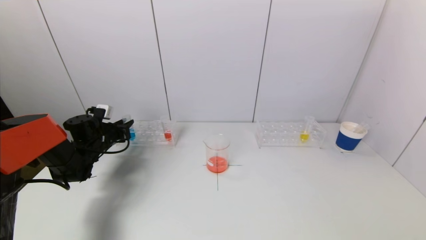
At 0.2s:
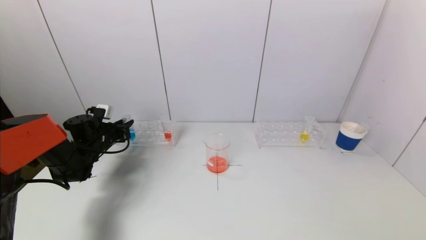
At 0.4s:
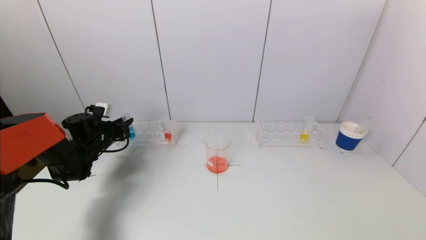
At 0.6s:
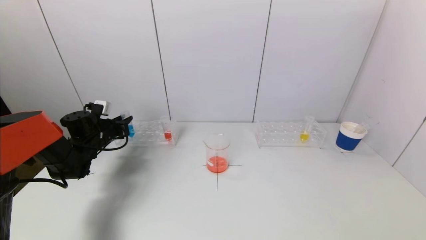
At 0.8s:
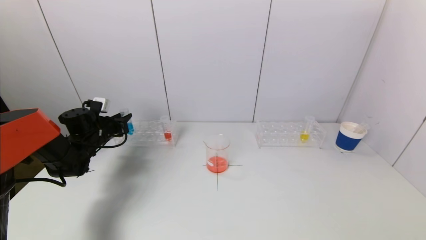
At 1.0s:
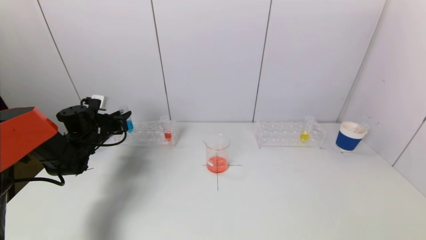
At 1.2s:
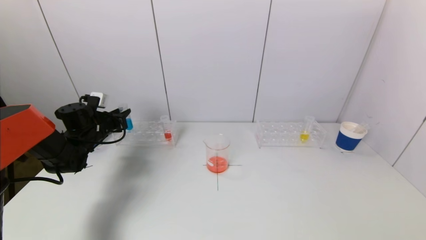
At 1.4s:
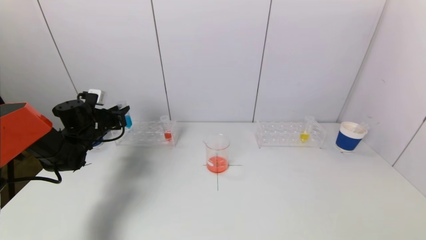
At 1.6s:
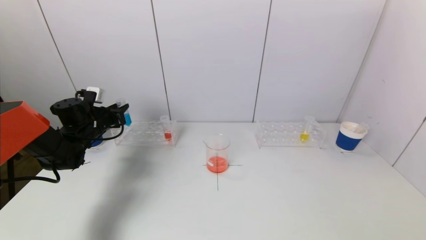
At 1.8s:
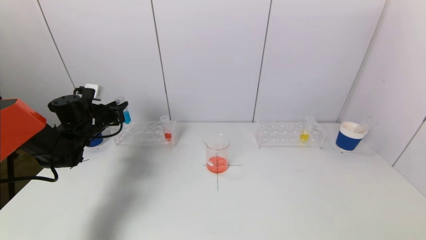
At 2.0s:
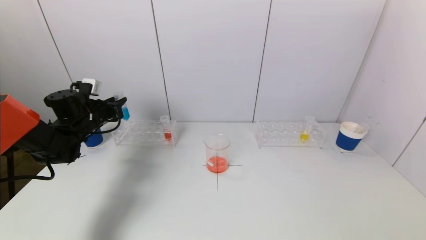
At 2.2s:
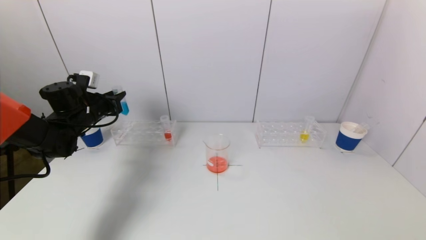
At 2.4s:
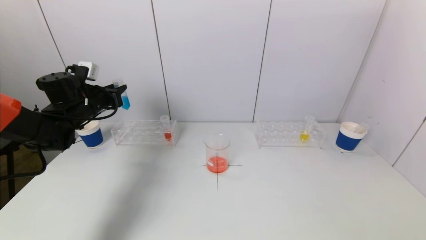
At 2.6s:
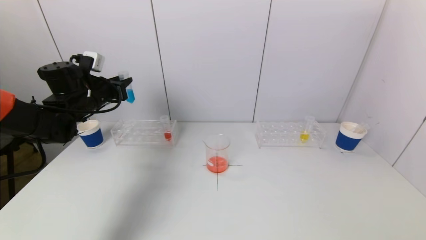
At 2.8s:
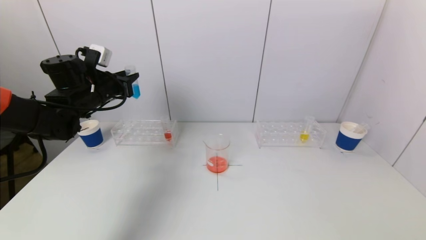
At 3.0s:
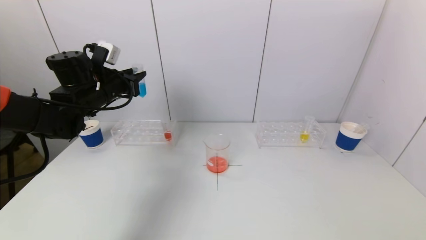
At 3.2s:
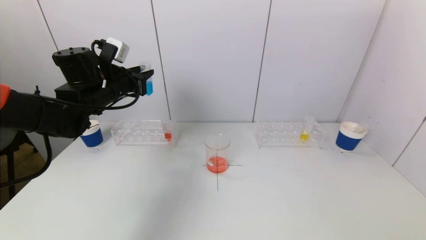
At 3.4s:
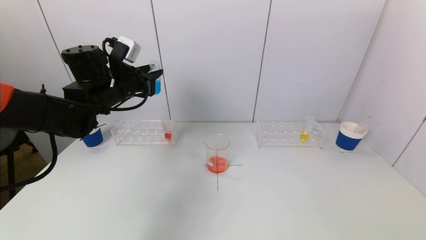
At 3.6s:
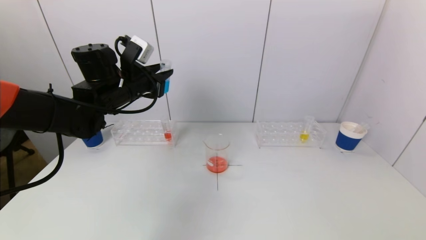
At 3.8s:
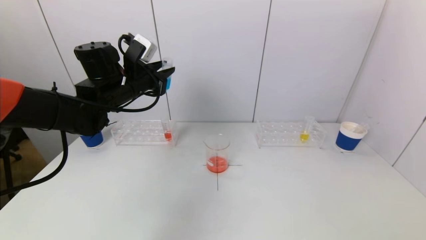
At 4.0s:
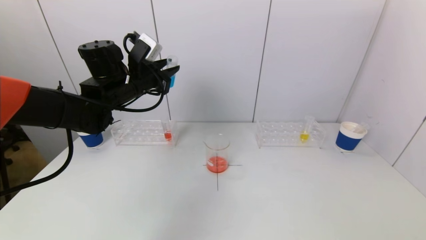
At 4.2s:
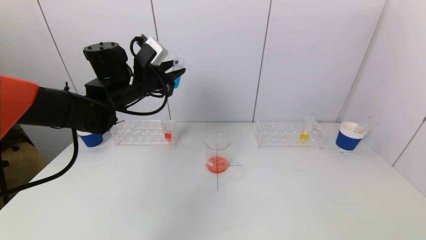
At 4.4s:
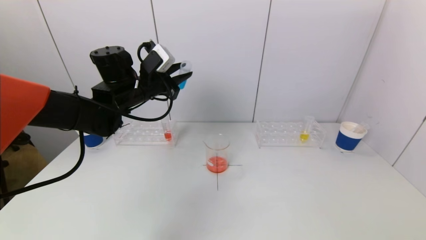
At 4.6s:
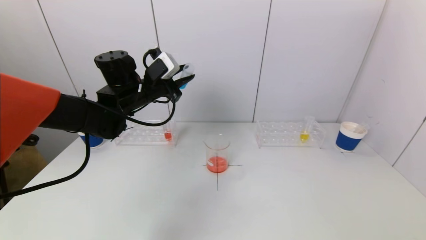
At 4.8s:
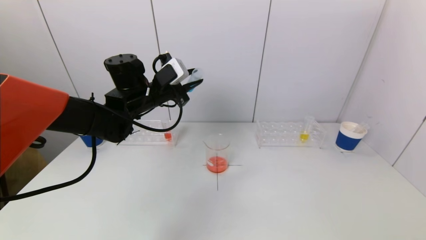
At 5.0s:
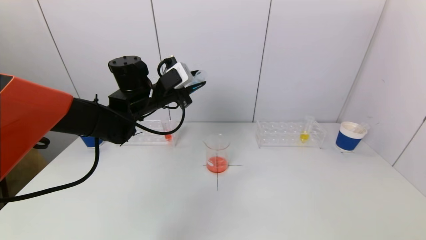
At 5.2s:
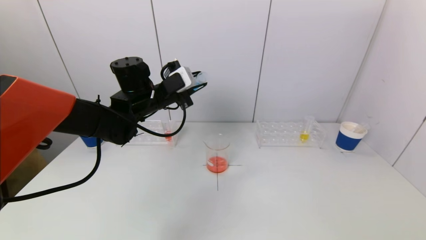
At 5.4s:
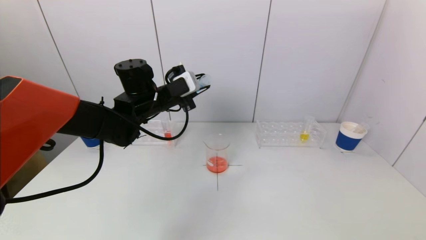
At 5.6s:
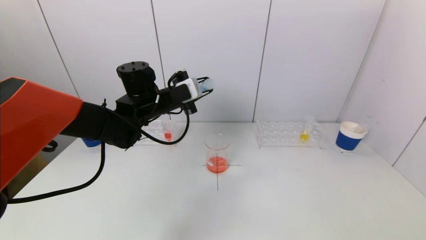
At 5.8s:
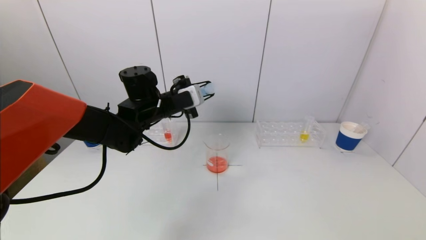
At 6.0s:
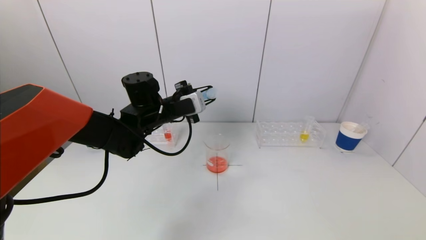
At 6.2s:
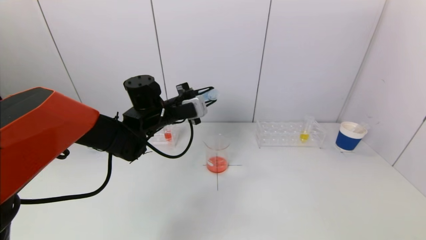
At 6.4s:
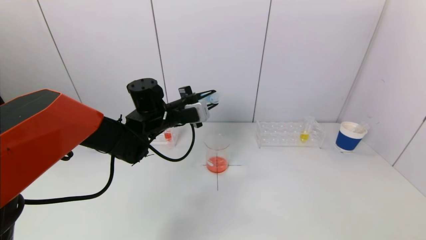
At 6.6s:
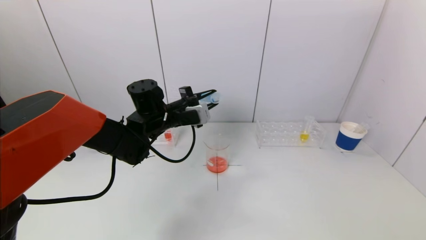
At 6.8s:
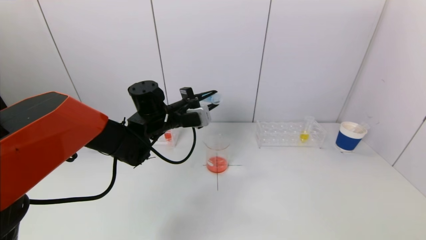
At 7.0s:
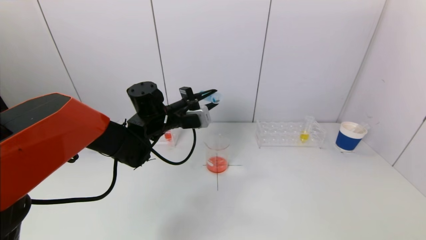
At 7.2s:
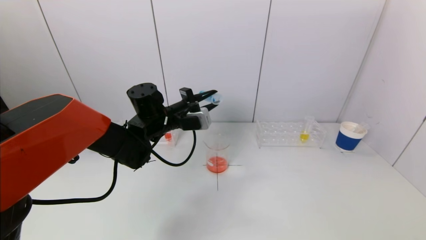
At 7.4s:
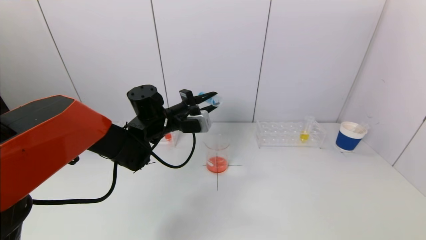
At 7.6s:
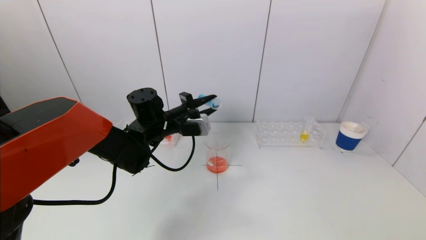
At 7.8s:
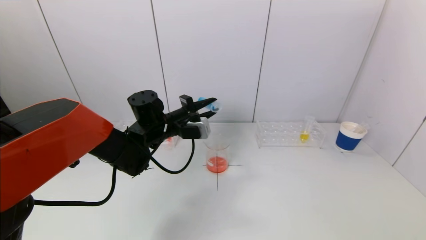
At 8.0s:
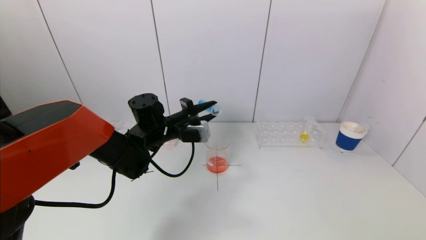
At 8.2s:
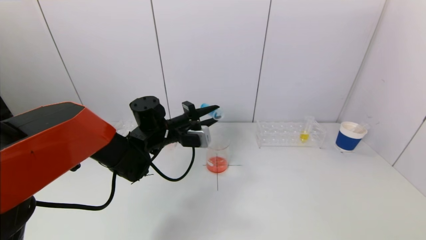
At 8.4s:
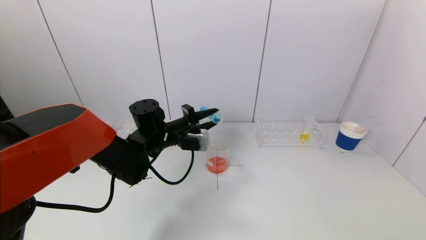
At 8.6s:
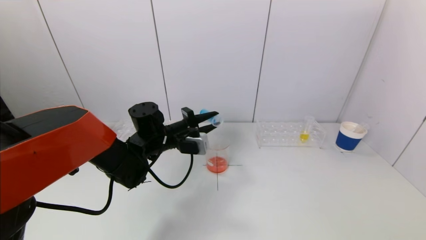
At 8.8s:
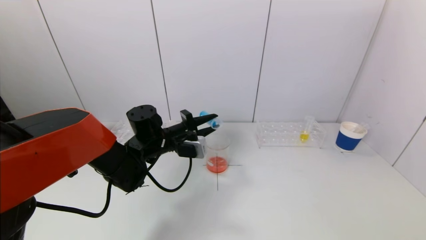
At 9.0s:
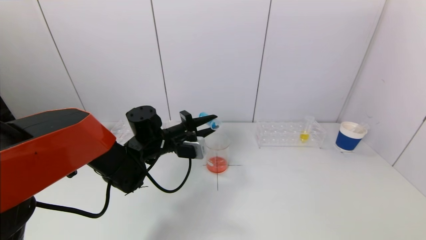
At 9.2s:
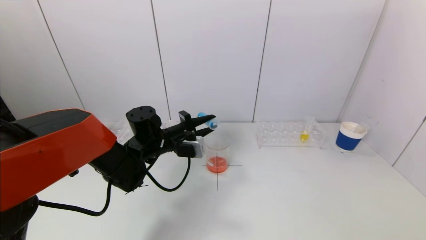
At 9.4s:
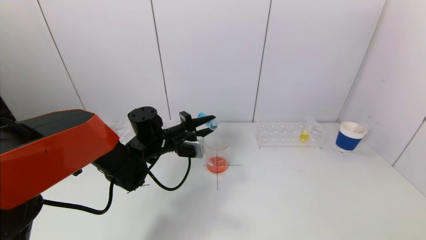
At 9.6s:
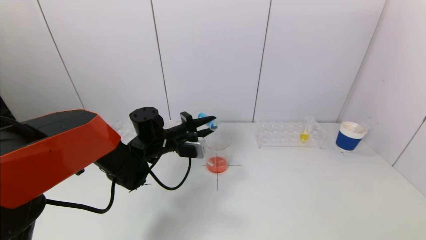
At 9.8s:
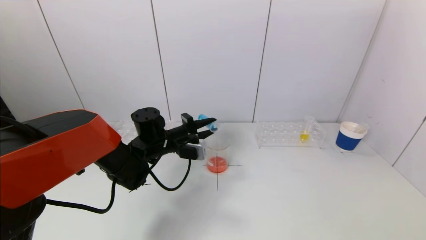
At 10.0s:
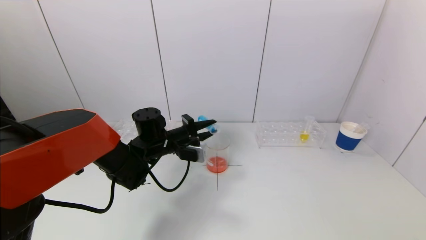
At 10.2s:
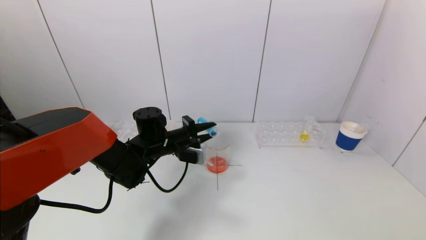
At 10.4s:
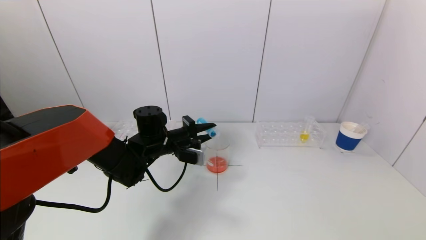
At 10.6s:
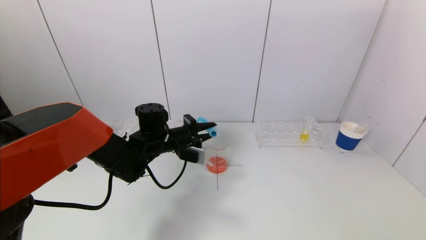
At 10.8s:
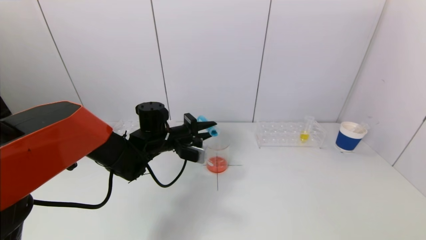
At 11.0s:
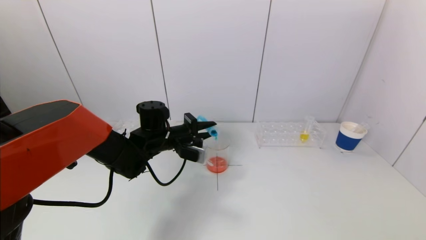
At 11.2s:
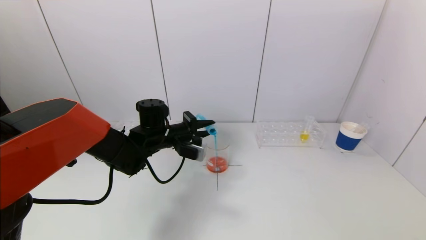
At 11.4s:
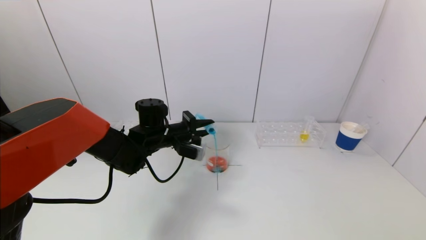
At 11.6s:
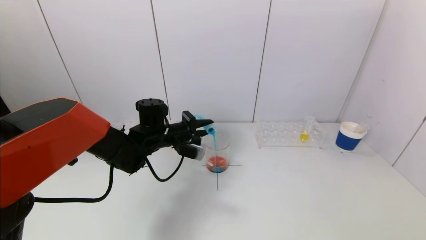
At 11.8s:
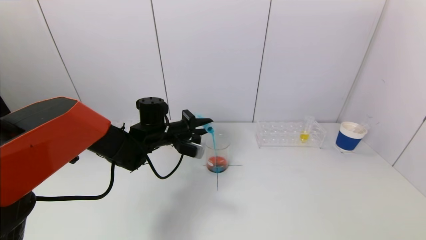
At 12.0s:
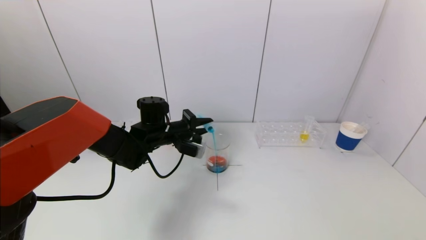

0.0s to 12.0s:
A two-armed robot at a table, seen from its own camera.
Task of the whole recording: pick up a test tube with pigment on left test tube rack and a test tube with pigment on right test tube rack by grippers and pour them into the beaker.
0.0s to 1.6s: The left gripper moves upward, some 5 cm.
1.6s to 3.0s: The left gripper is displaced upward and to the right by approximately 15 cm.
3.0s to 4.4s: The left gripper shifts approximately 10 cm to the right.
4.4s to 6.0s: The left gripper ends up roughly 5 cm from where it was.
6.0s to 7.6s: The grippers stay close to where they were, moving slightly.
7.6s to 10.4s: There are only small adjustments of the grippers.
10.4s to 12.0s: The grippers stay close to where they were, moving slightly.

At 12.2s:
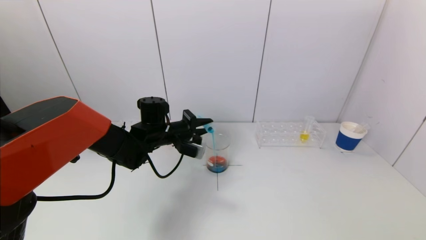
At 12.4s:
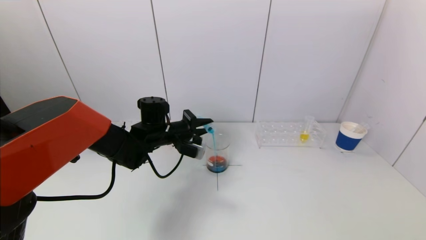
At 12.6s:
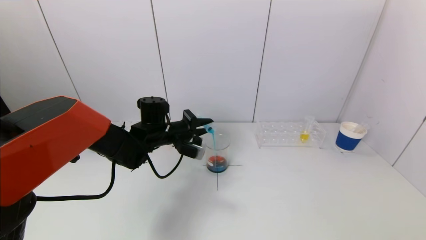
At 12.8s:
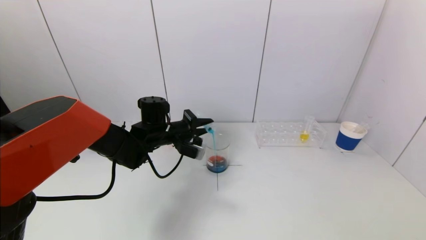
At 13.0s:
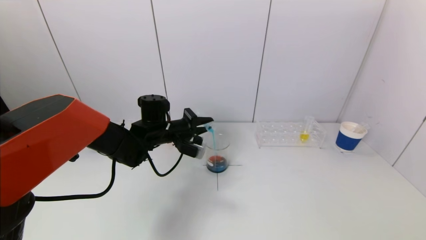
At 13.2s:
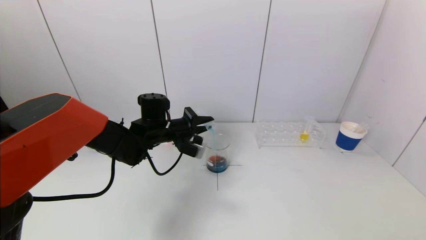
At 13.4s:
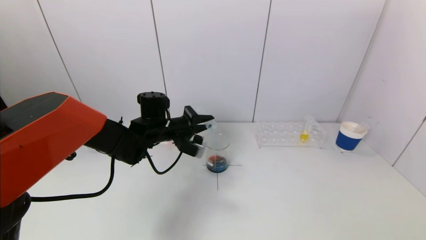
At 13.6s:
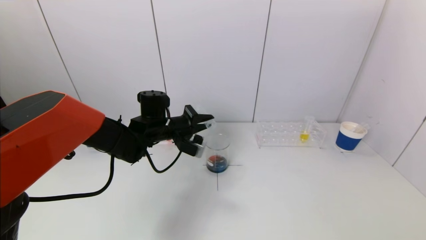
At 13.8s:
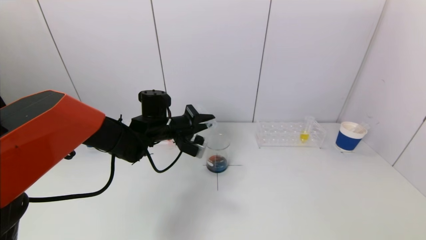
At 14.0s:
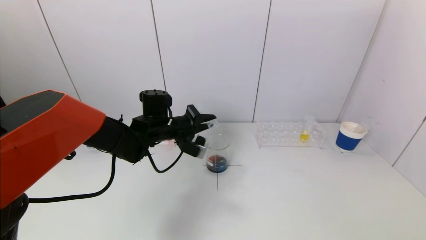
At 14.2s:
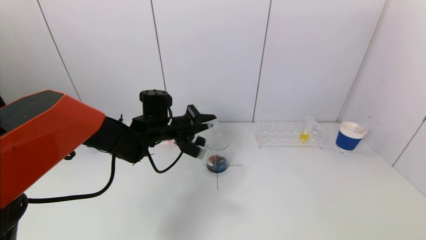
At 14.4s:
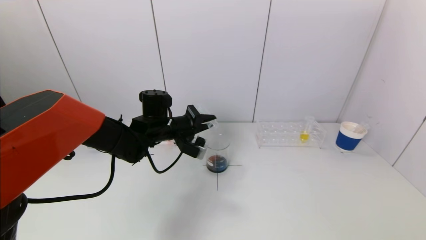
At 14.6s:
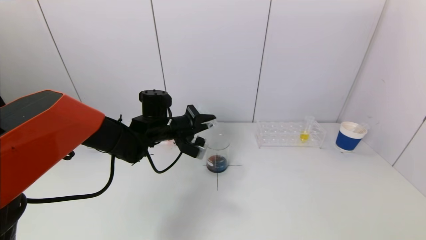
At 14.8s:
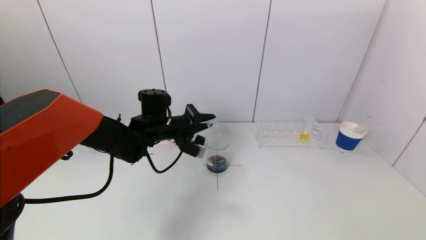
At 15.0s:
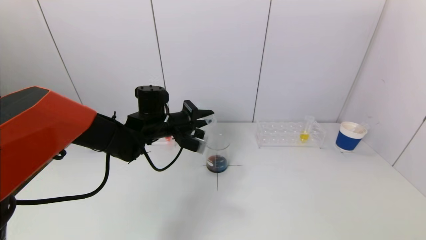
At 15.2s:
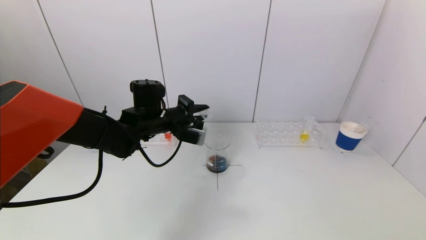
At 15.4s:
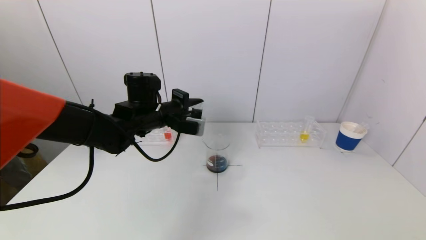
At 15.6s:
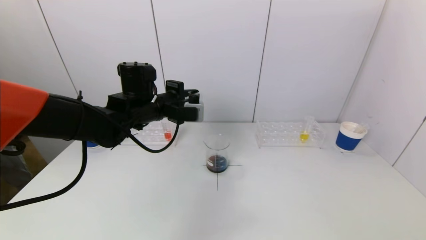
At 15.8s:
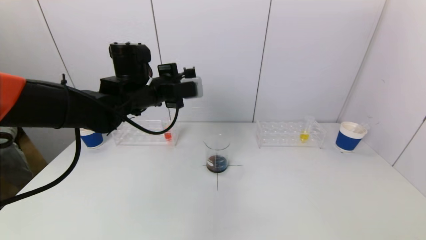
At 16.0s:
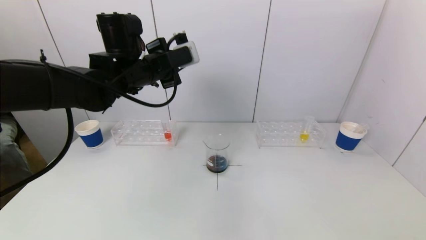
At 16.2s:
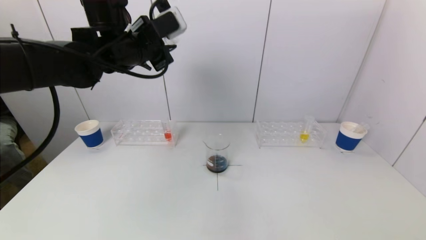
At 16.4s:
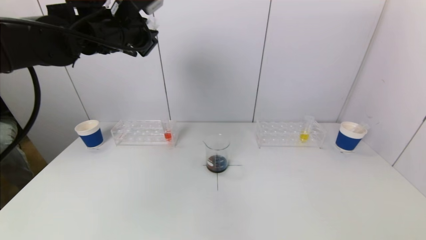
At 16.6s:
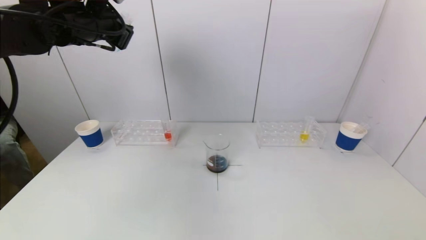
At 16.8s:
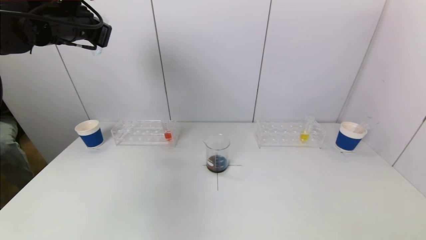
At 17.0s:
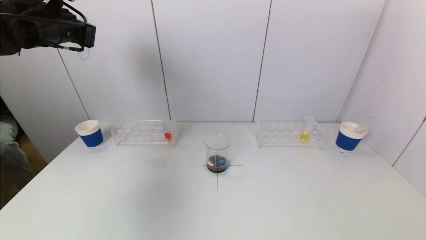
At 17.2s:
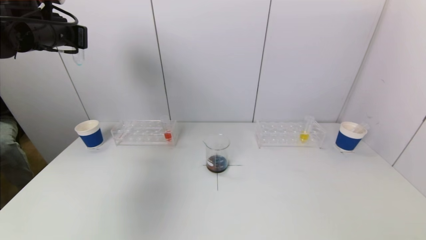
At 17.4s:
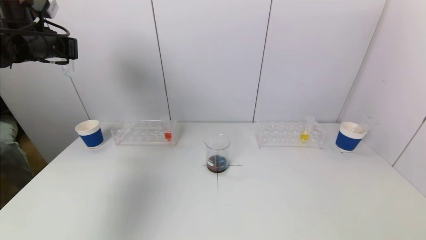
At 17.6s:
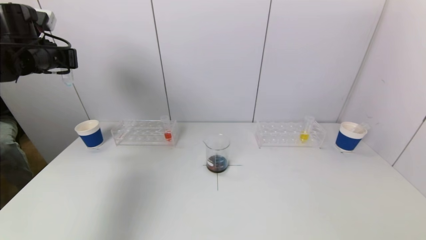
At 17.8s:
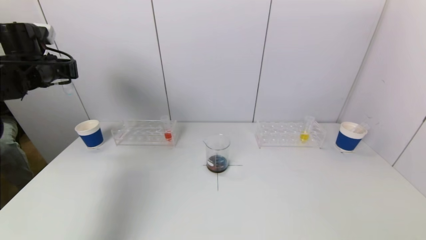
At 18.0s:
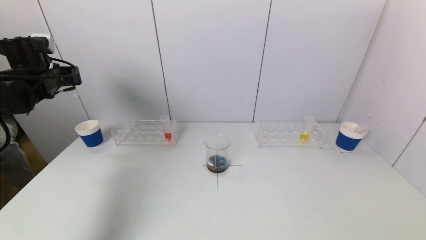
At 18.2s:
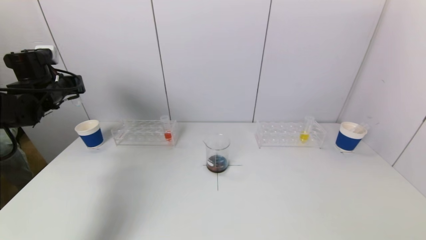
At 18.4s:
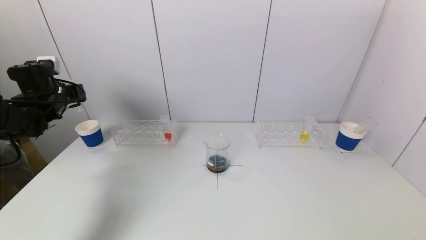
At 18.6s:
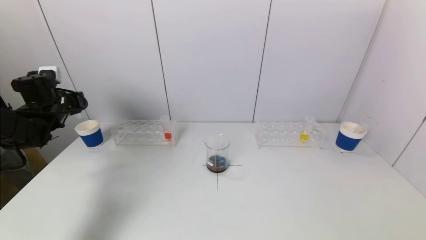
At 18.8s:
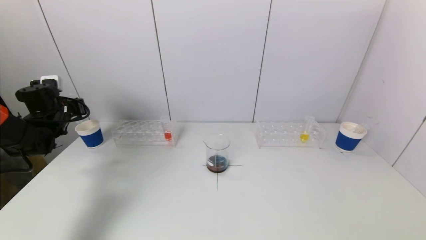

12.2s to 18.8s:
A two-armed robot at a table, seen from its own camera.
Task of the whole recording: pick up a test tube with pigment on left test tube rack and a test tube with pigment on right test tube rack by grippers and pour them into the beaker.
Step, 12.2s to 14.6s: Pour the blue reagent into the graduated cylinder with the left gripper.
12.2s to 13.8s: The grippers move only a little.
13.8s to 15.4s: The left gripper heads upward, covering roughly 5 cm.
15.4s to 17.2s: The left gripper shifts some 25 cm to the left and upward.
17.2s to 18.8s: The left gripper is displaced downward by roughly 20 cm.
